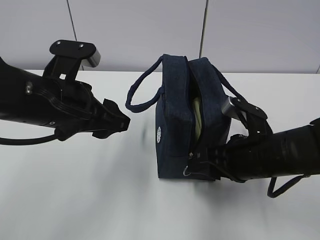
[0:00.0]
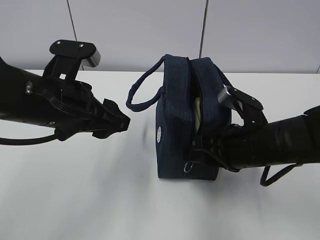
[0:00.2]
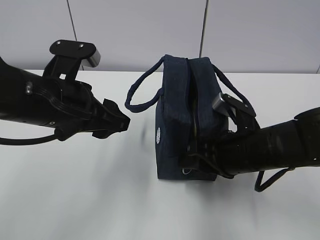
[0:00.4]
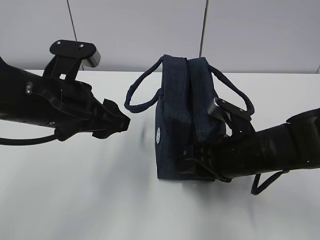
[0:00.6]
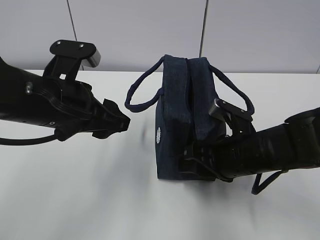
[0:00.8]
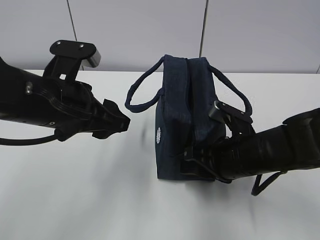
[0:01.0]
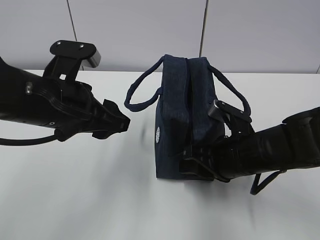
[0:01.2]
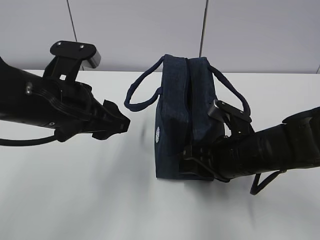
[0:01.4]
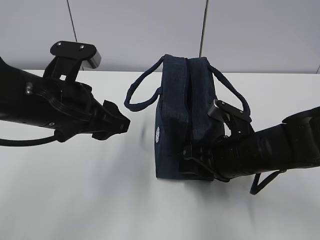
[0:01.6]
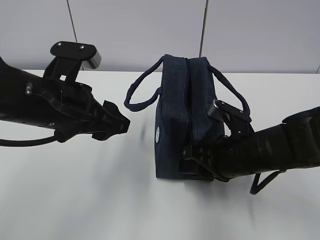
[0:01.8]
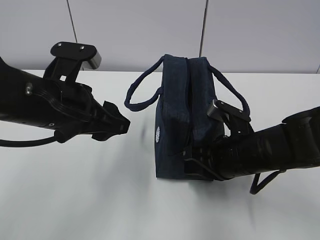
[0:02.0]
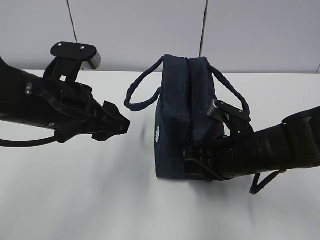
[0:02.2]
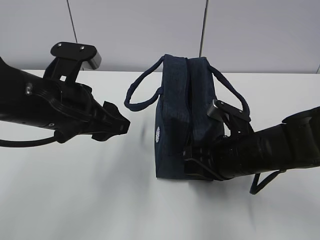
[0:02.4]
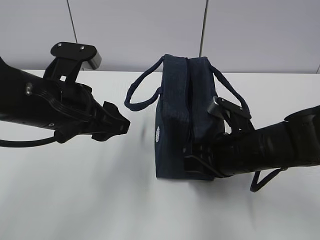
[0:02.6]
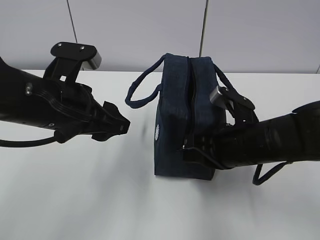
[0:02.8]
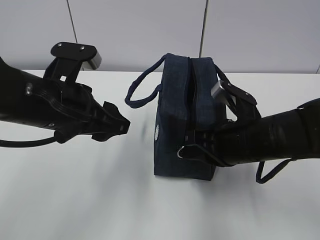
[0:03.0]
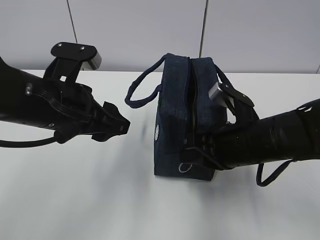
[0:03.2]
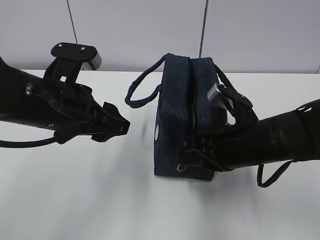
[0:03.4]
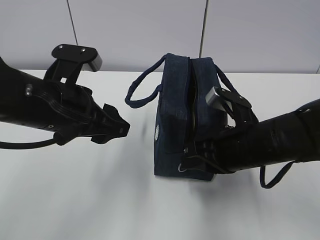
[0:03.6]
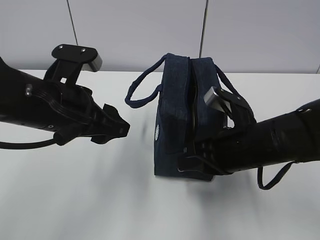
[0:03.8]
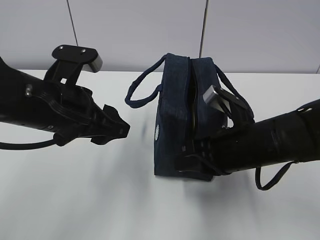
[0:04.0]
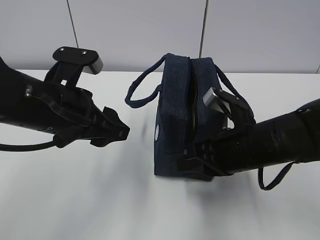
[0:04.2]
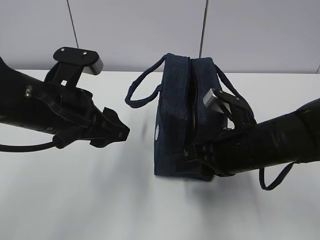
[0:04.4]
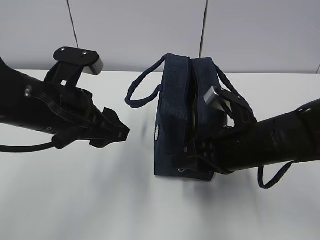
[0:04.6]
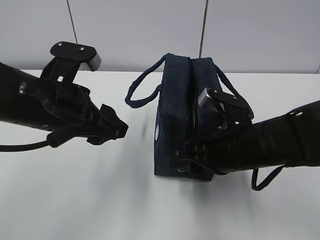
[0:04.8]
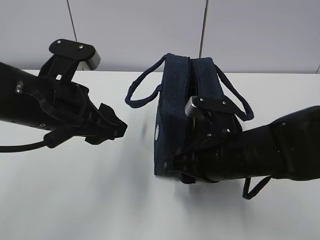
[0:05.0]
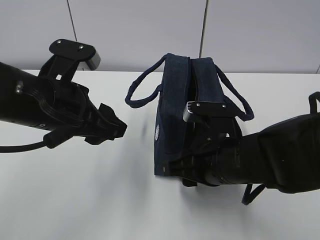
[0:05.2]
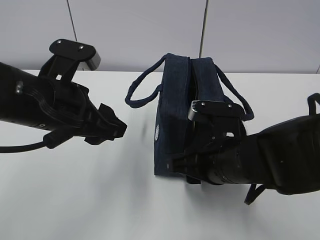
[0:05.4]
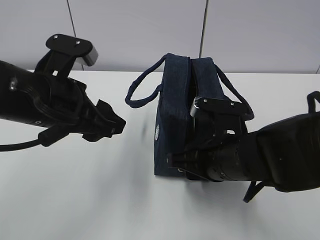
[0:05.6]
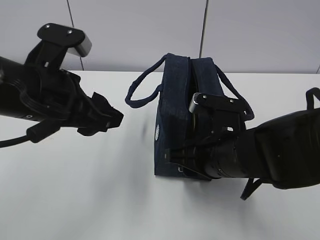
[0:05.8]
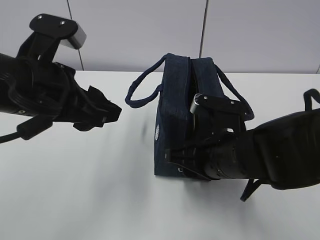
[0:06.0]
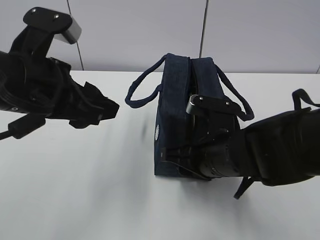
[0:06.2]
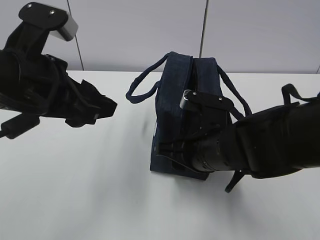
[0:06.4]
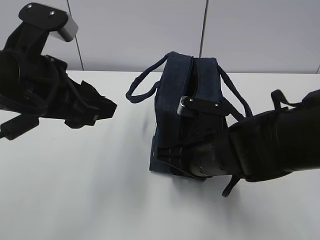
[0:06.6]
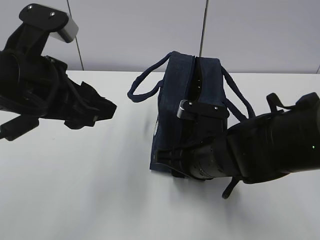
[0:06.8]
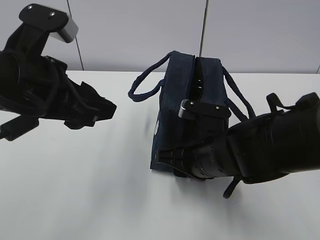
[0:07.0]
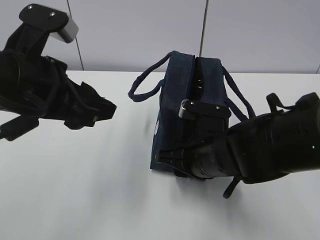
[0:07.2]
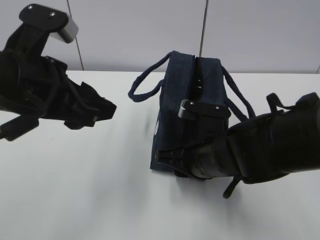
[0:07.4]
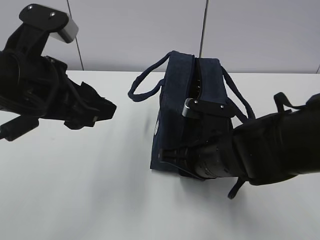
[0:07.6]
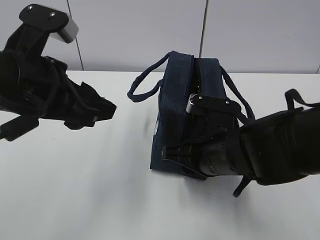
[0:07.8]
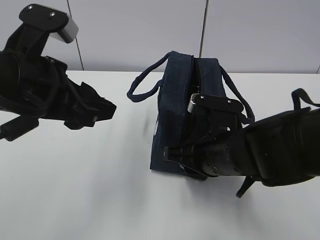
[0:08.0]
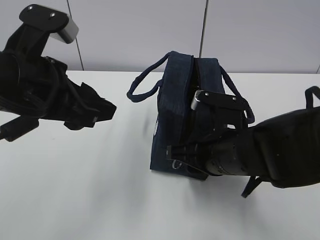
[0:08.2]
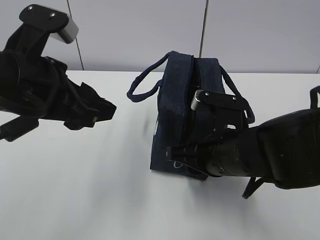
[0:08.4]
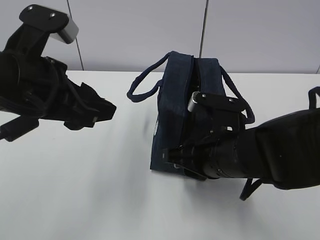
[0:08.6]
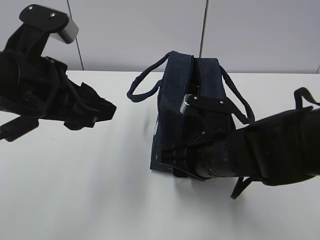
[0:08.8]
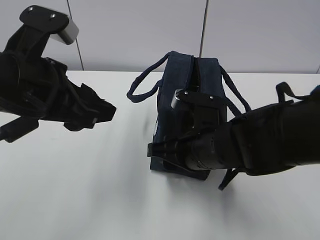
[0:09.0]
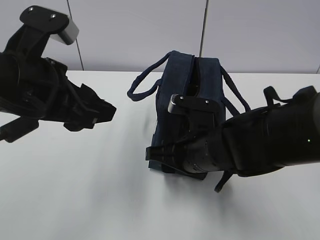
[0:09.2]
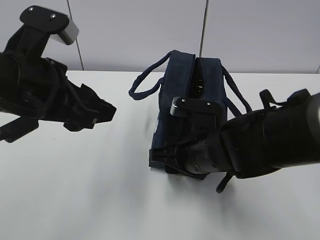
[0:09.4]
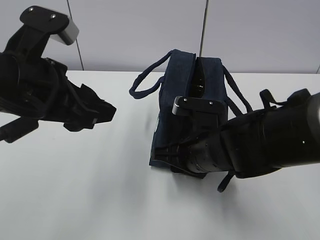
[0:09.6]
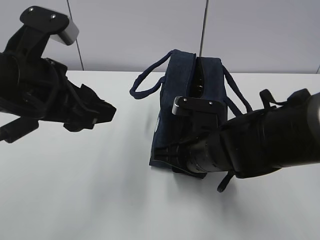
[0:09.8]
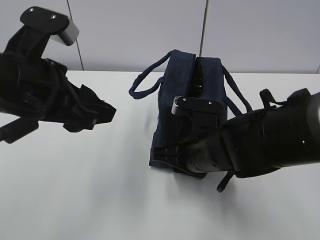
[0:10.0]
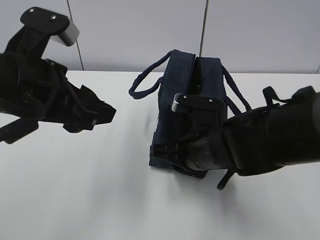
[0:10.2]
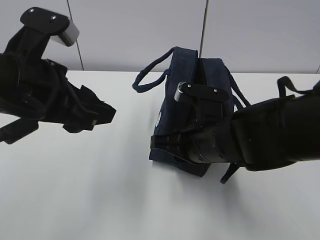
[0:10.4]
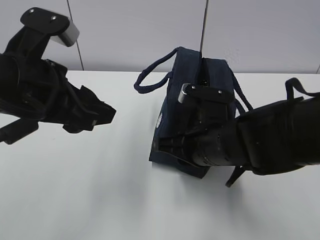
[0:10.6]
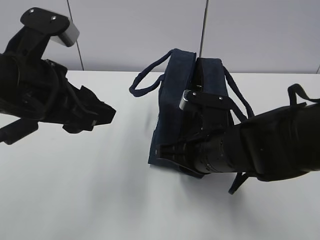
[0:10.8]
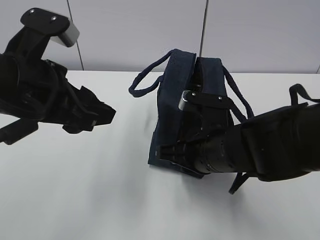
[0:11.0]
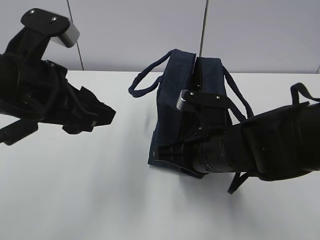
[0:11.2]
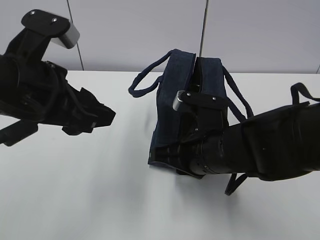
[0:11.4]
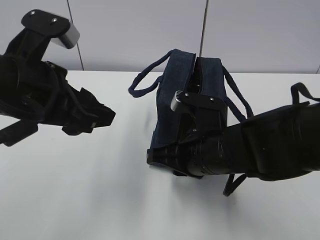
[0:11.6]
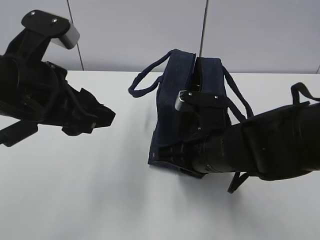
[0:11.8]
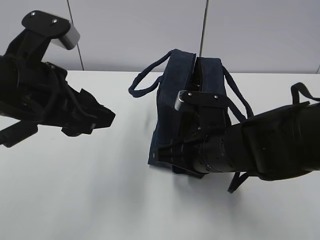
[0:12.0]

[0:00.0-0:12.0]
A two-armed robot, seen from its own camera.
0:00.0 to 0:01.6: The grippers move only a little.
0:01.6 to 0:03.0: The right gripper closes its fingers.
0:03.0 to 0:04.4: There are only small adjustments of the grippers.
0:06.0 to 0:09.0: The grippers stay close to where they were, moving slightly.
0:09.0 to 0:10.4: The right gripper closes up.
0:10.4 to 0:12.0: The grippers move only a little.

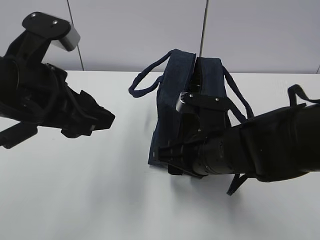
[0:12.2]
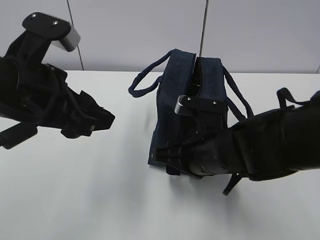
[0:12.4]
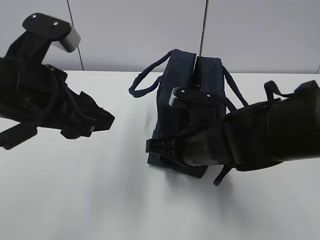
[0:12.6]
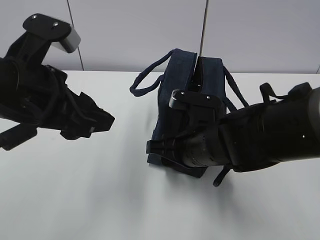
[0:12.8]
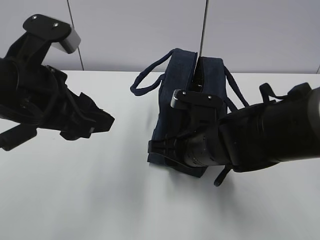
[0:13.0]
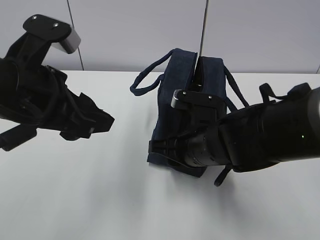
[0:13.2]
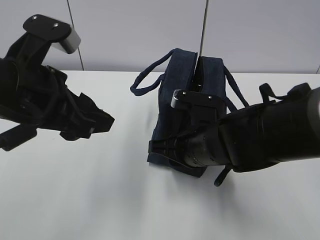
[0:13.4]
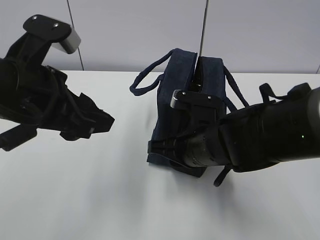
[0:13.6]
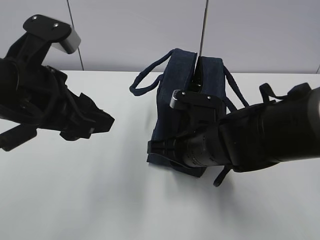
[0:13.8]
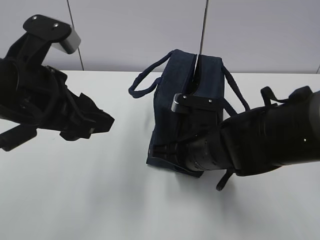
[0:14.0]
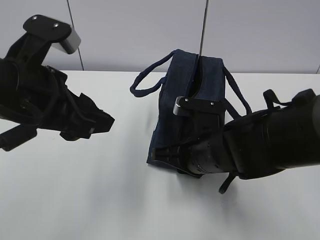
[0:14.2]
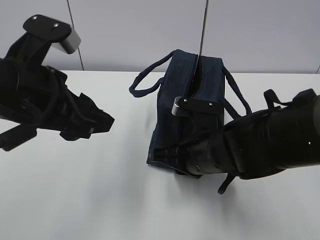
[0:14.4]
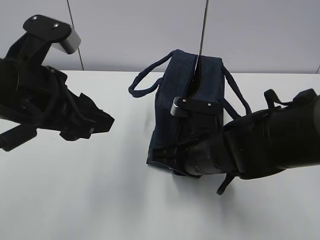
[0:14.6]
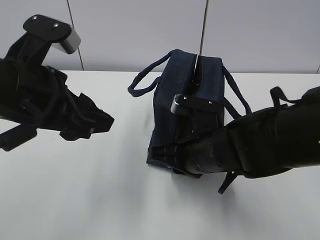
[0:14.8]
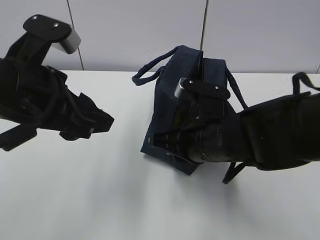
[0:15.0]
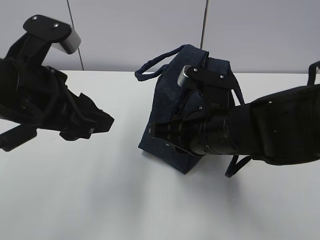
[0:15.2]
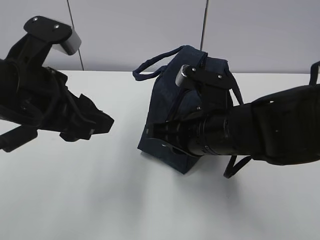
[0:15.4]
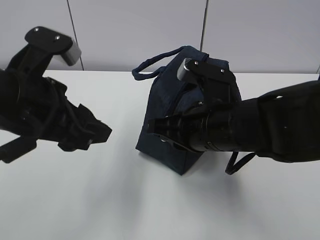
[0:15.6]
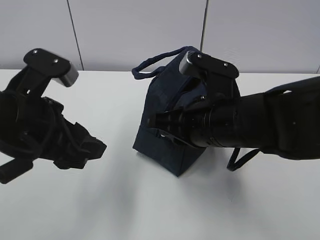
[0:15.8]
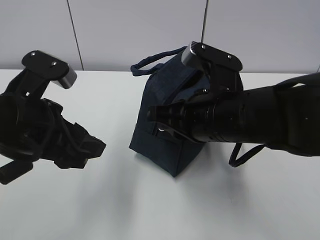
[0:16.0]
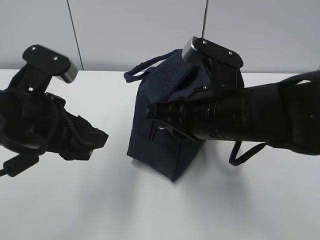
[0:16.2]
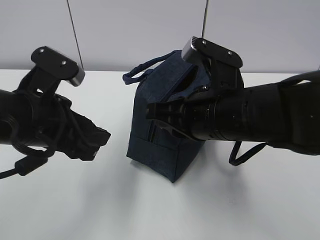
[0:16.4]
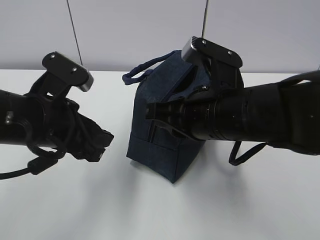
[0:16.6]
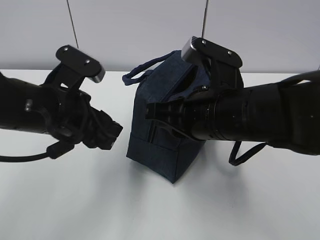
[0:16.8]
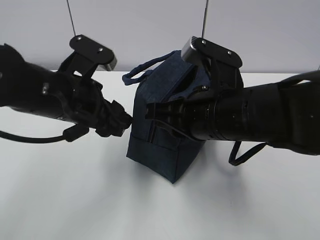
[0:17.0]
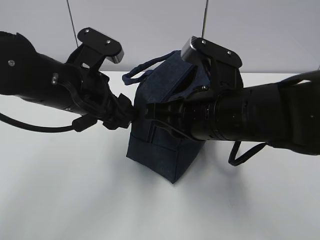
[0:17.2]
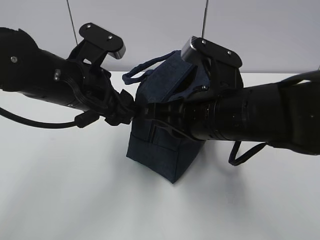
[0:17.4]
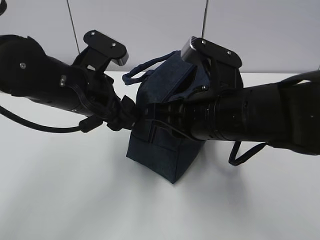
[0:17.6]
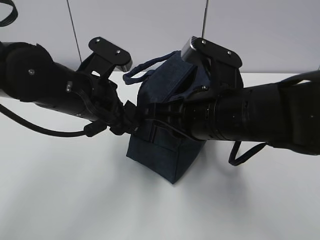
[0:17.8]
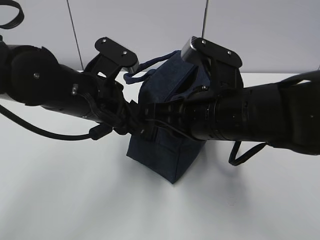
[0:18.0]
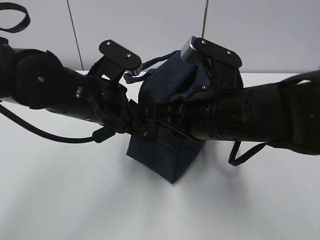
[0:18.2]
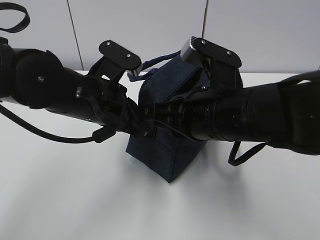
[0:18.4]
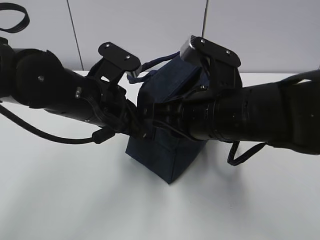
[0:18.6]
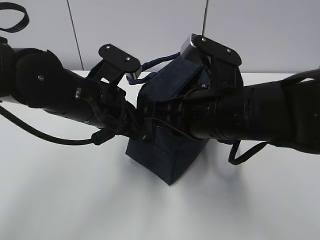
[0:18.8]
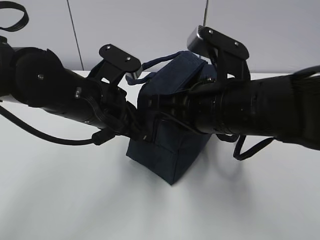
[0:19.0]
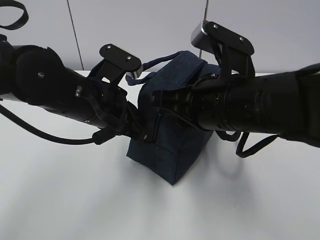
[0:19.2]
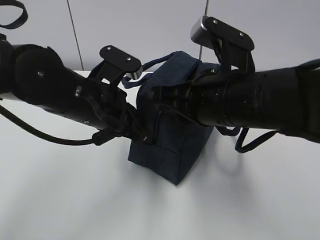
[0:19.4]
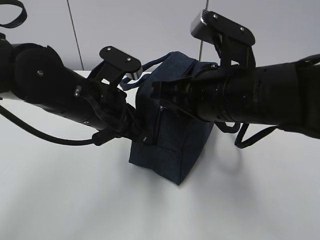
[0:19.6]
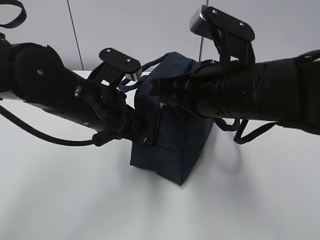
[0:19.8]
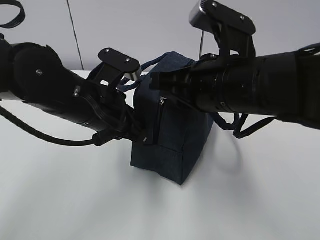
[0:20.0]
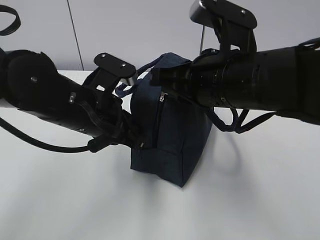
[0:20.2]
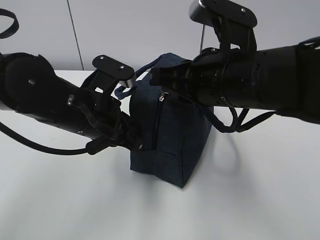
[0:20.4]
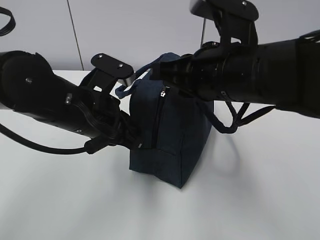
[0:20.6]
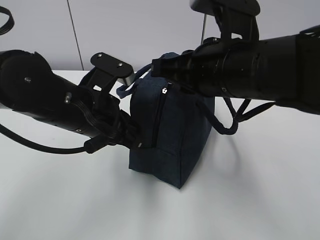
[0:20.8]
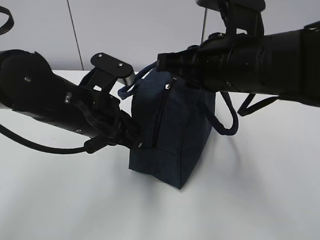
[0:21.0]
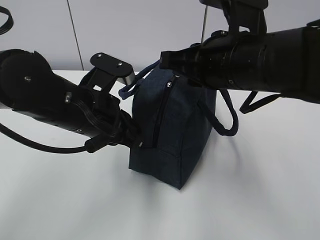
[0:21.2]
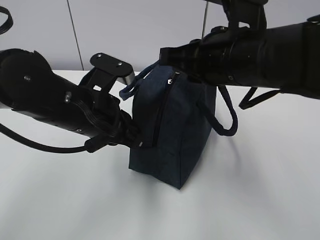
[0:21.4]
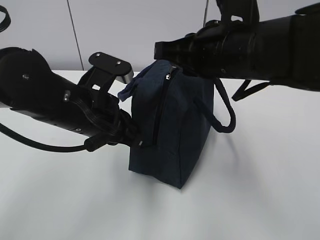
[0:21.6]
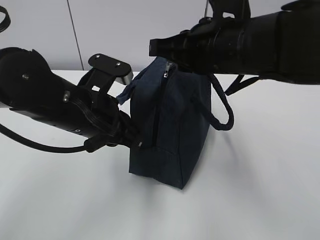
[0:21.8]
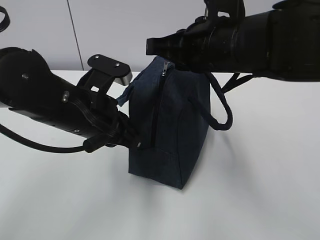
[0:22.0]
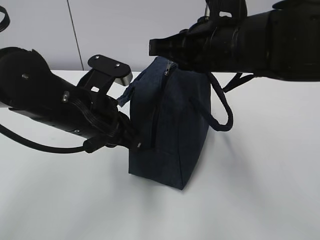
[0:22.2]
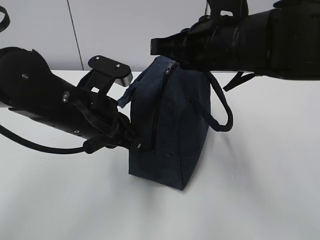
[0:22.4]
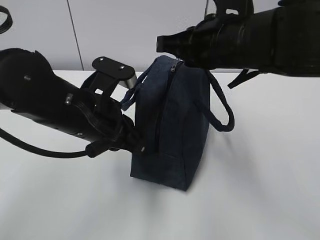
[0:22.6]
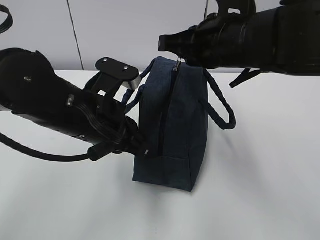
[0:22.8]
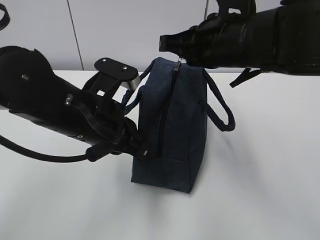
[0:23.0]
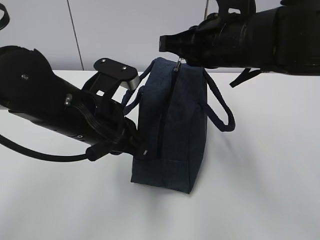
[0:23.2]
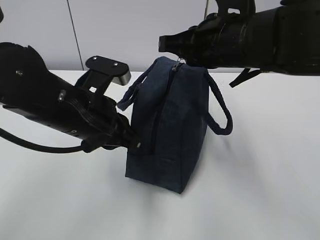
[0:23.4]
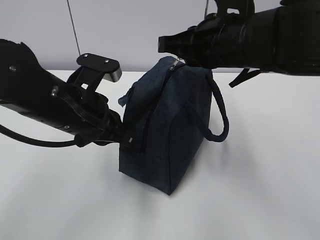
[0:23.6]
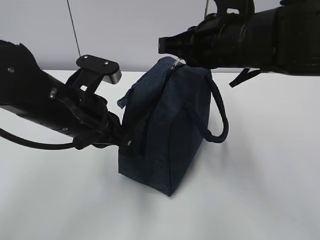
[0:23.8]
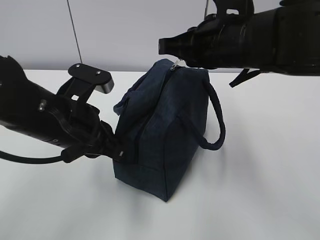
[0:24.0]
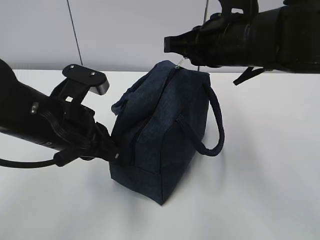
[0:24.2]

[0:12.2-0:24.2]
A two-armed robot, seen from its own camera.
Step, 0:13.2 to 0:18.6: Pull the zipper with your right hand.
Step, 0:18.8 to 0:21.4: Grab the lunch bag with your left hand.
0:12.2 to 0:13.8: The right gripper closes up.
0:13.8 to 0:15.2: The right gripper ends up roughly 5 cm from where it was.
0:15.2 to 0:16.6: The left gripper goes approximately 5 cm downward.
0:16.6 to 0:18.2: The left gripper moves to the right, some 5 cm, and closes.
0:18.2 to 0:19.8: The grippers stay close to where they were, moving slightly.
0:21.2 to 0:24.2: The grippers make only small movements.
